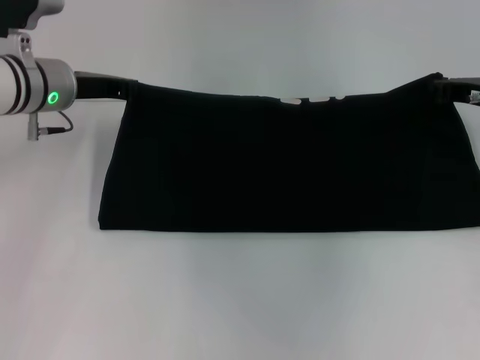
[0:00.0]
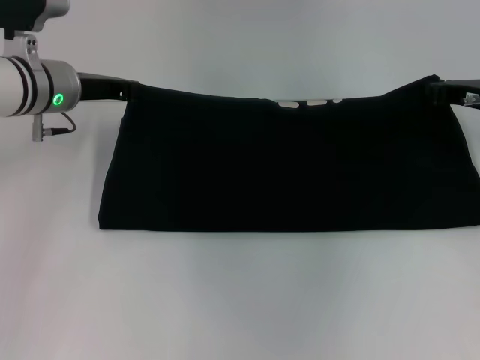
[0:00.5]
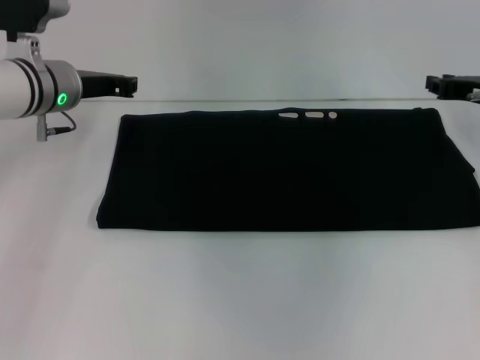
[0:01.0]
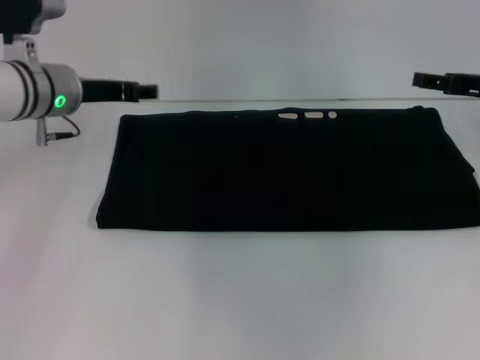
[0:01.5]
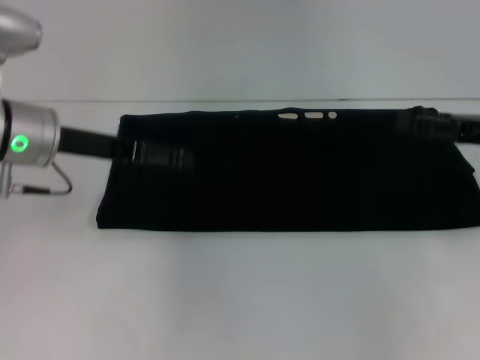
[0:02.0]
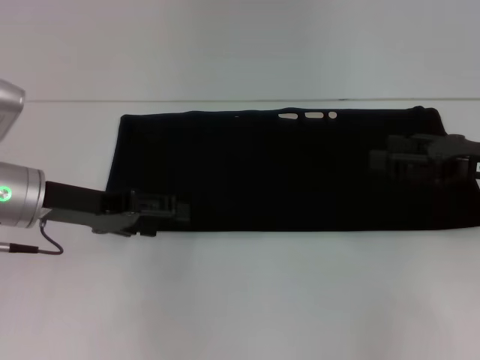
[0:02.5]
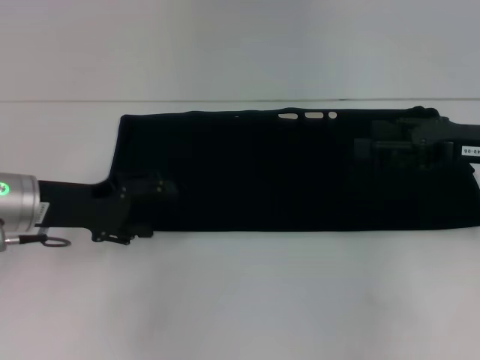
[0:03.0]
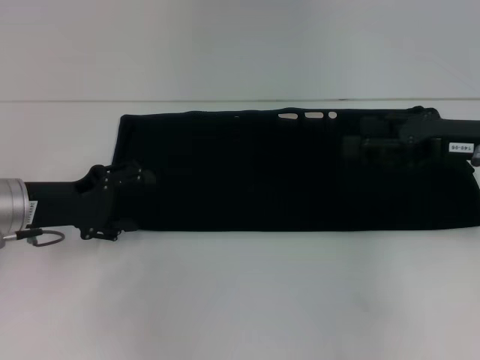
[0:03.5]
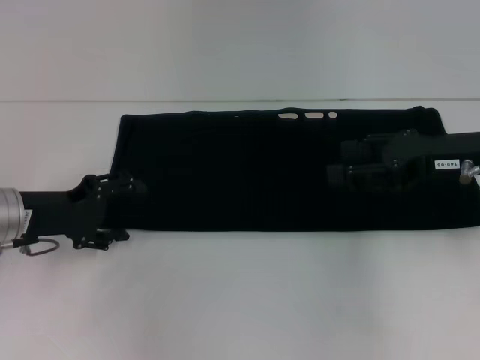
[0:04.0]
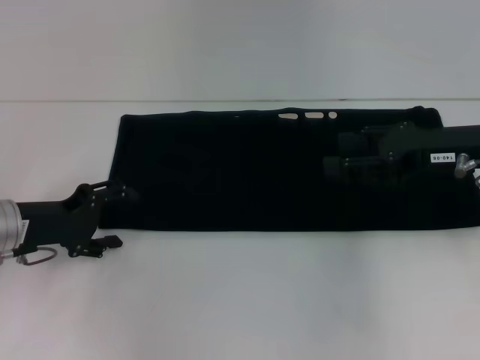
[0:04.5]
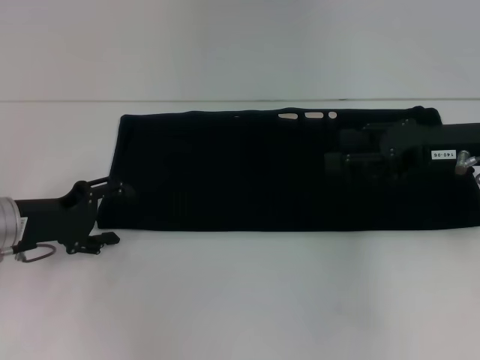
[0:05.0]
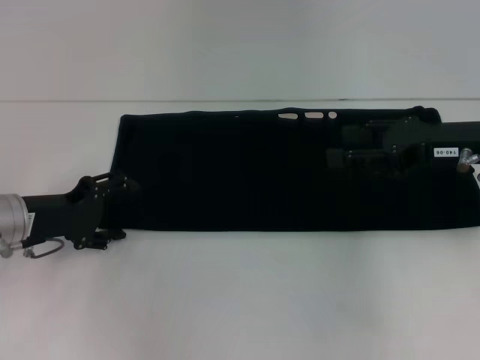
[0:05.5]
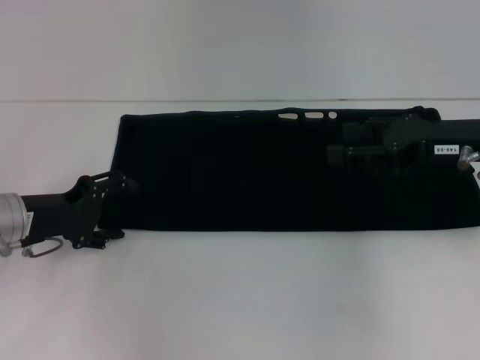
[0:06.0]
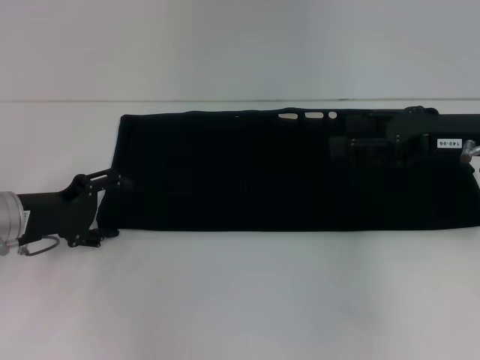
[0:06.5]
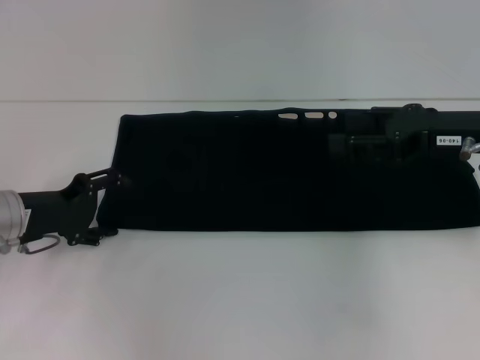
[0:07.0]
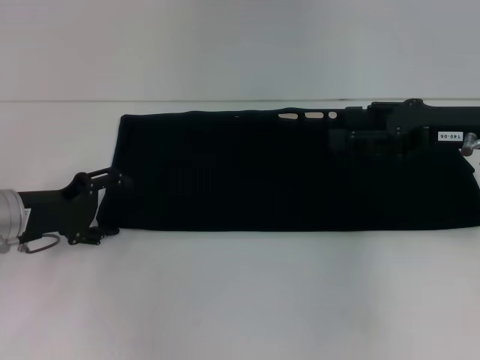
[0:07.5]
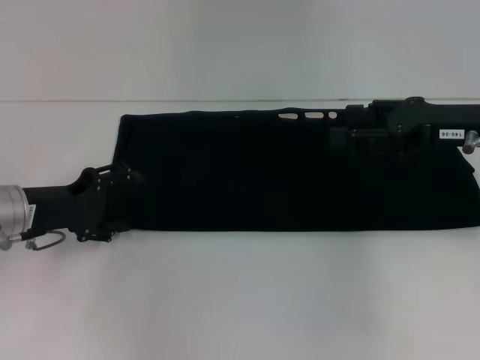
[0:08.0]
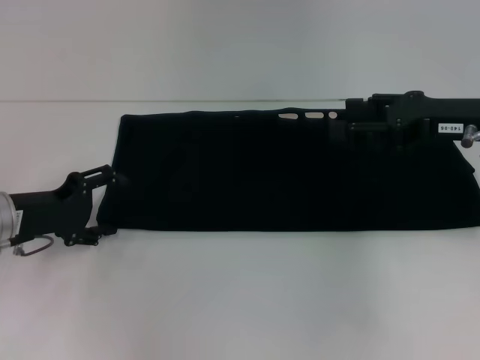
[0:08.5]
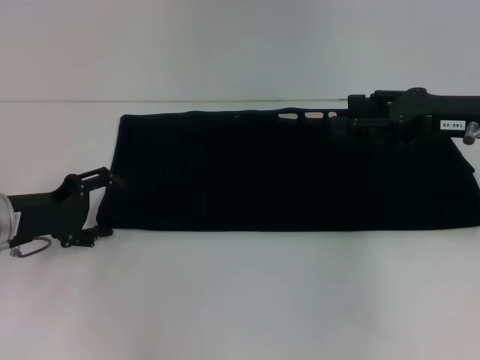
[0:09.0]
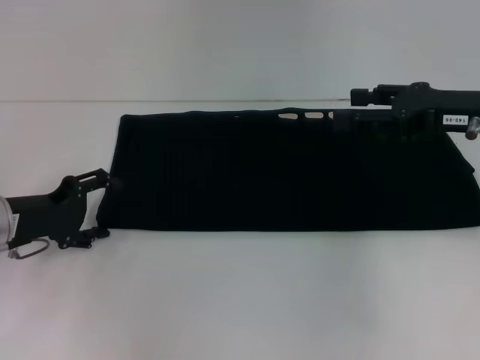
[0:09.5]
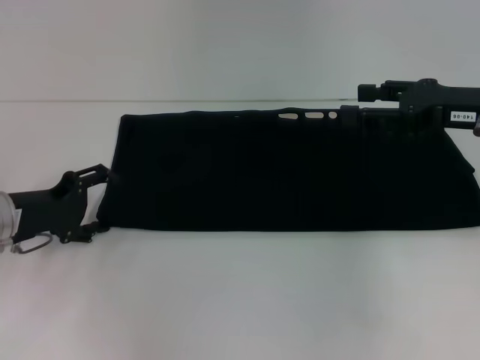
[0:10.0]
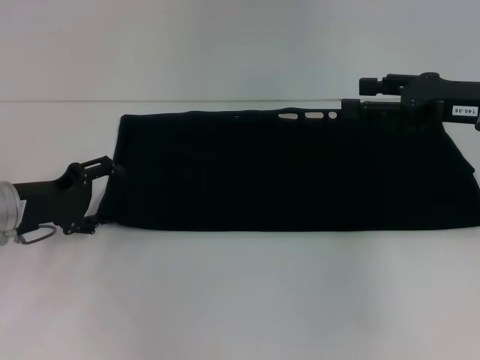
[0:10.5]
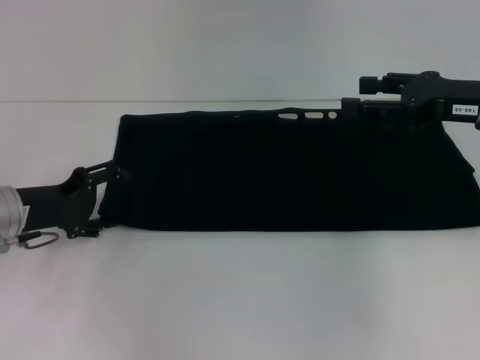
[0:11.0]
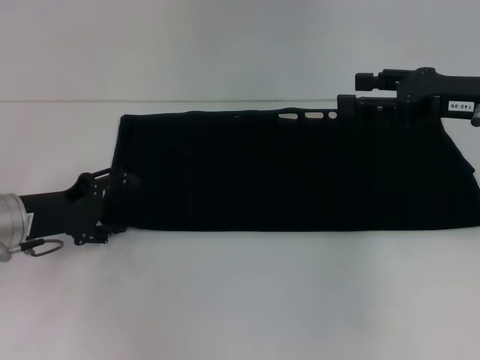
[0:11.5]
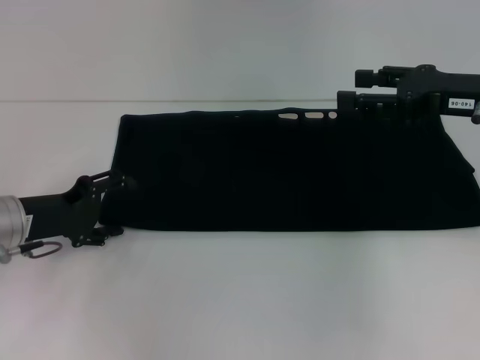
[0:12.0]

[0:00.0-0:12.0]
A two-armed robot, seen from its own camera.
0:00.0 to 0:02.0: Both grippers travel together backward, roughly 10 cm. The right gripper opens up; the left gripper opens its fingers.
0:02.0 to 0:04.0: The right gripper goes some 5 cm to the left. Meanwhile the left gripper moves downward, about 10 cm.
0:04.0 to 0:06.0: The grippers stay close to where they were, moving slightly.
0:06.0 to 0:08.0: Both grippers stay put.
0:08.0 to 0:12.0: The grippers move only a little.

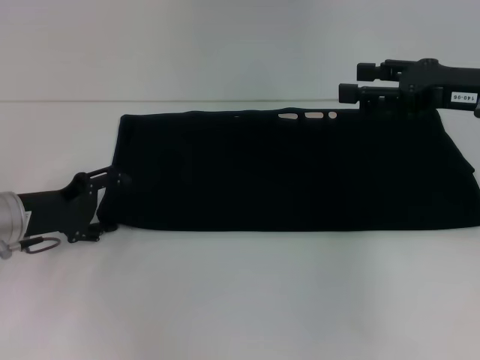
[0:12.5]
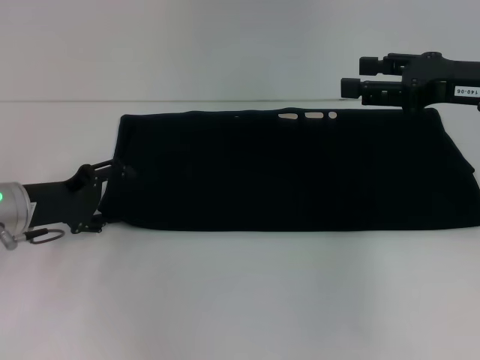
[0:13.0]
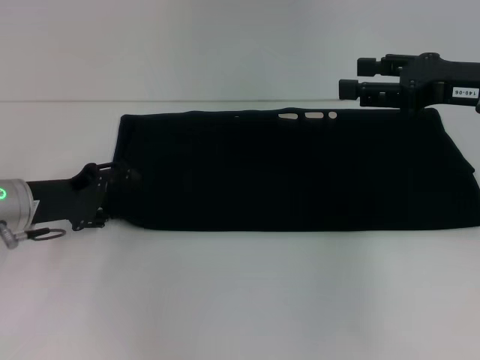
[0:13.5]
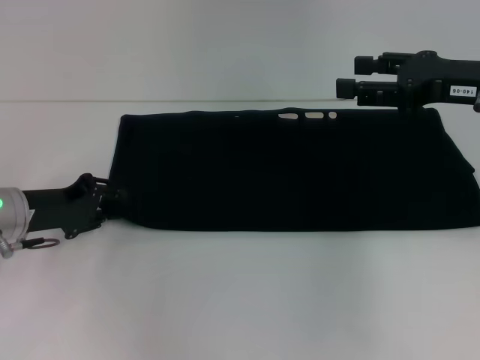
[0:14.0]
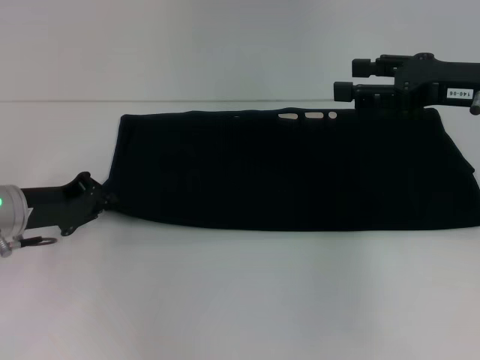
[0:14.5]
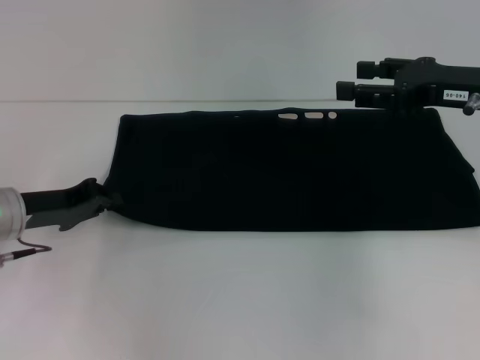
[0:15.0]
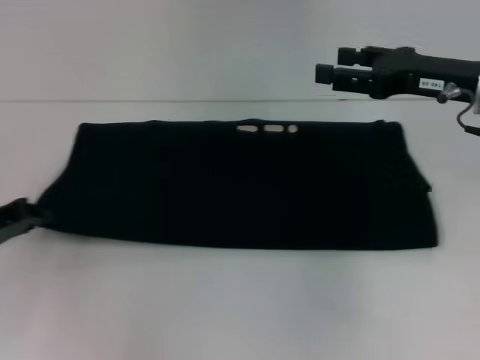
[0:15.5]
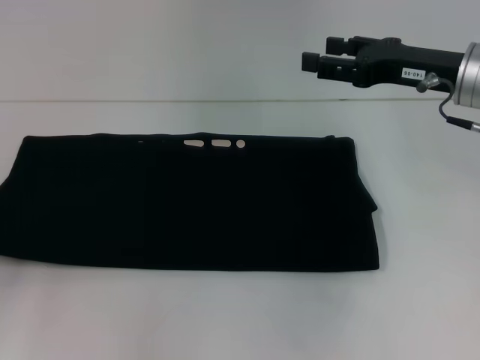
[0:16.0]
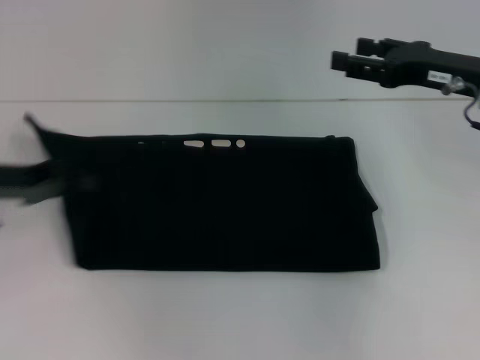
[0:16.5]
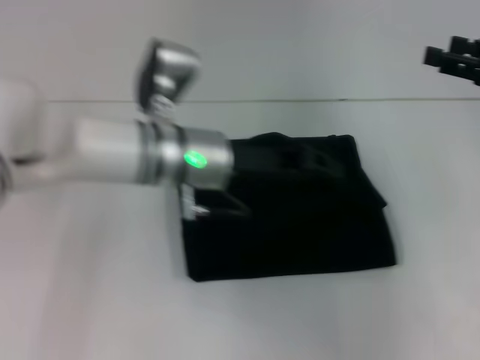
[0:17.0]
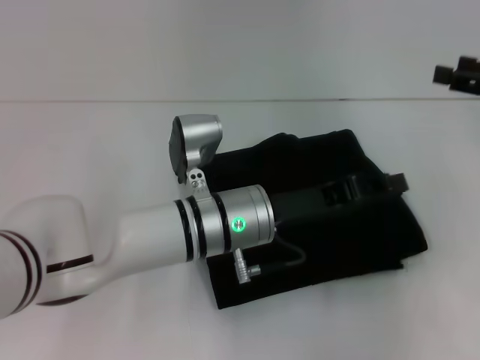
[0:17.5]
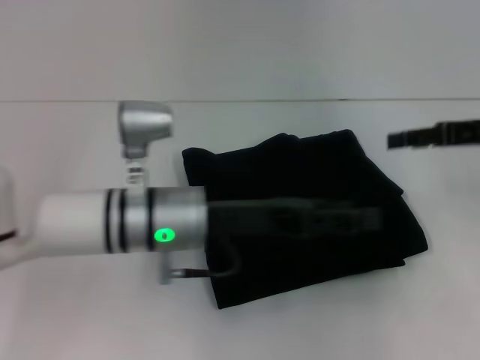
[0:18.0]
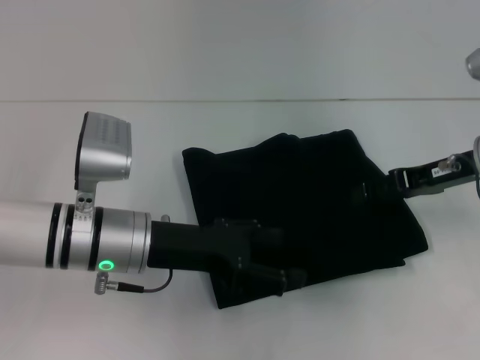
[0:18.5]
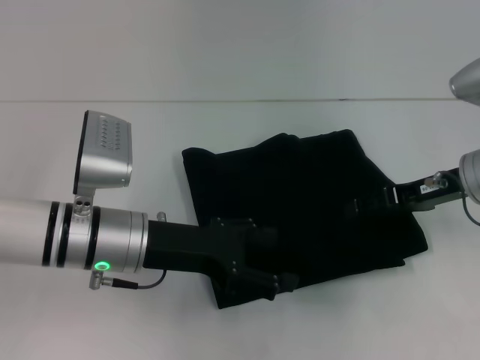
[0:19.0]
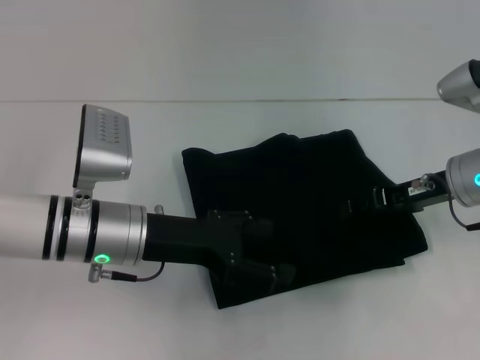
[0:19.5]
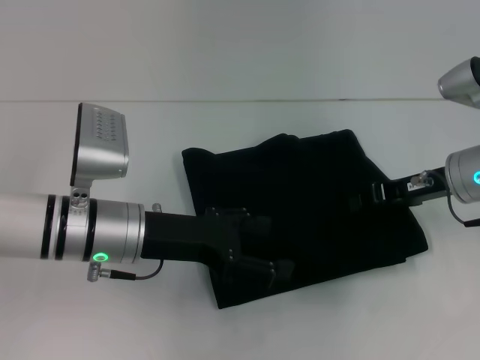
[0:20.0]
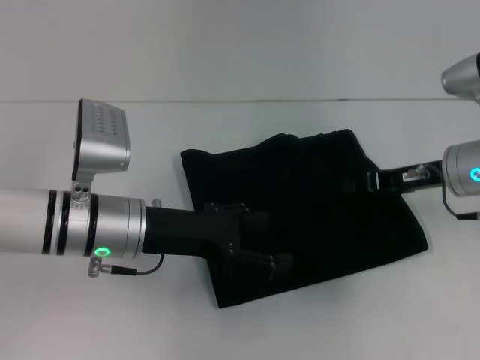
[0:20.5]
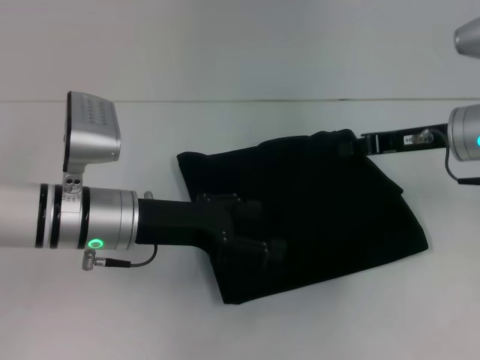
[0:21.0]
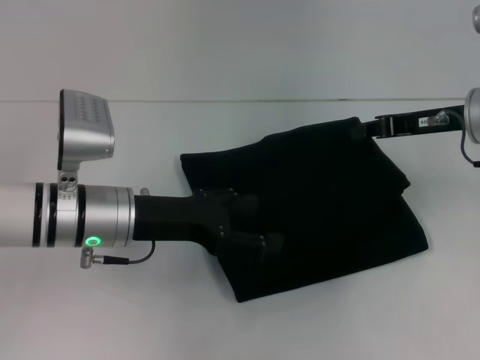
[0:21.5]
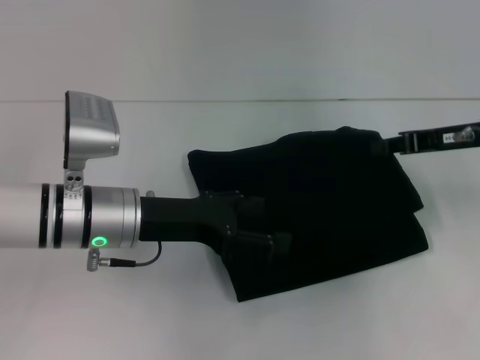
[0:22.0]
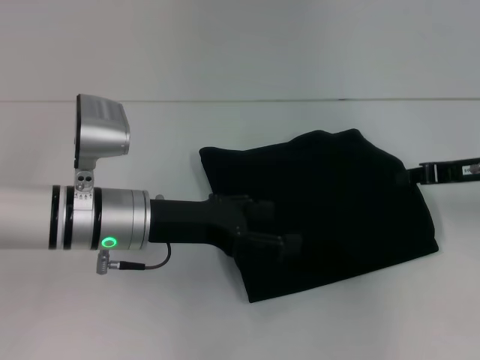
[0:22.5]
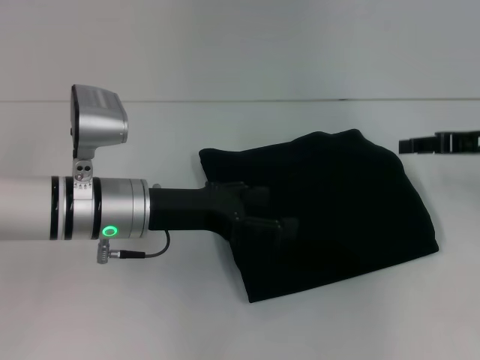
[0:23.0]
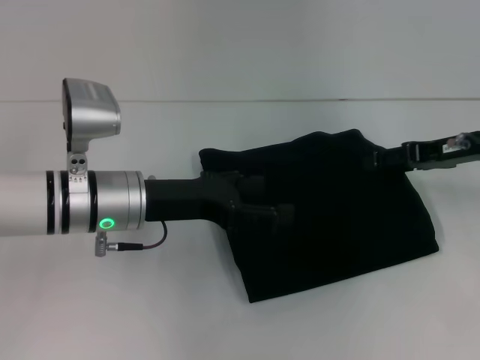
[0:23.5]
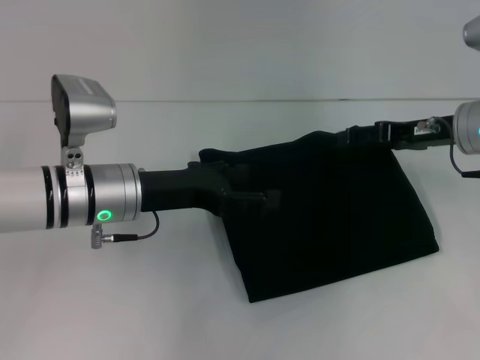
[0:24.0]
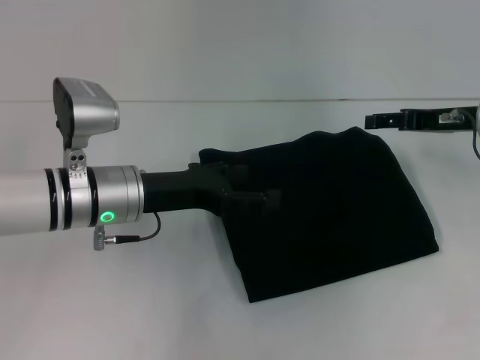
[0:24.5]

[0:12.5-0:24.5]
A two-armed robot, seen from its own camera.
Step, 0:12.5 to 0:17.5: Fold the clothes with your left hand.
0:12.5 to 0:14.5: The left gripper closes its fingers.
0:14.5 to 0:16.5: The left gripper travels upward by some 5 cm, and goes to the left and returns, some 10 cm each way.
0:16.5 to 0:18.5: The left gripper heads to the right, covering approximately 15 cm, and opens up, while the right gripper moves about 10 cm to the right and comes back.
0:18.5 to 0:20.5: The right gripper closes.
0:20.5 to 0:22.5: The right gripper heads to the right, covering about 5 cm.
0:22.5 to 0:24.5: The right gripper ends up approximately 5 cm from where it was, and opens up.

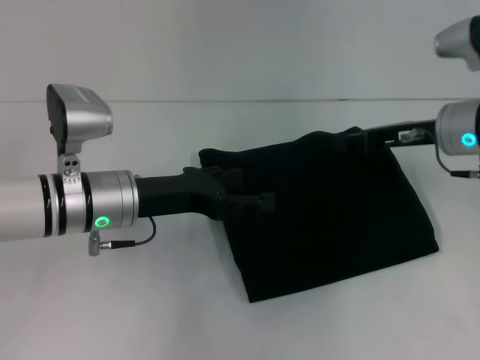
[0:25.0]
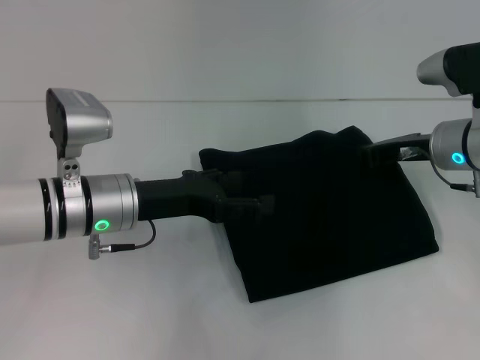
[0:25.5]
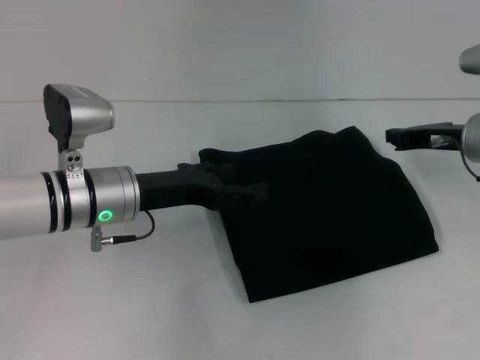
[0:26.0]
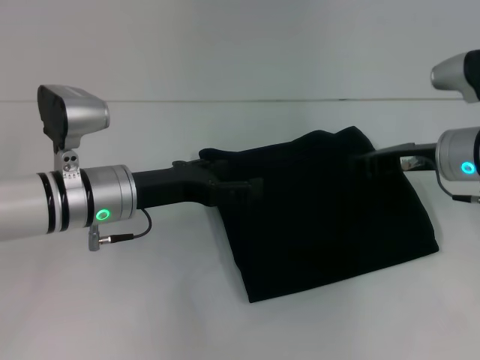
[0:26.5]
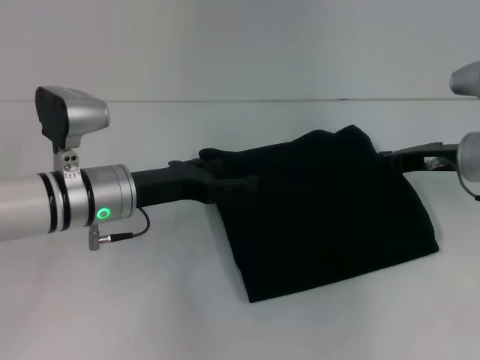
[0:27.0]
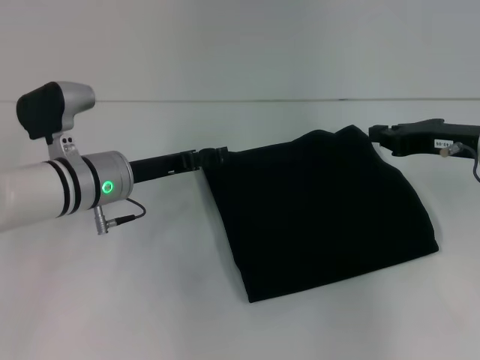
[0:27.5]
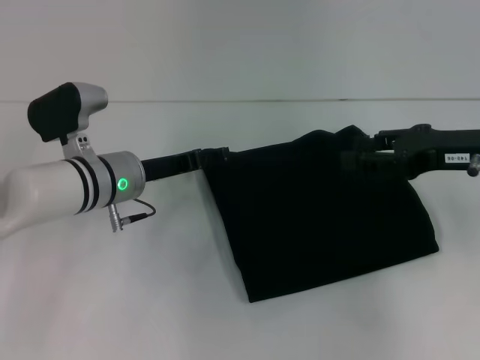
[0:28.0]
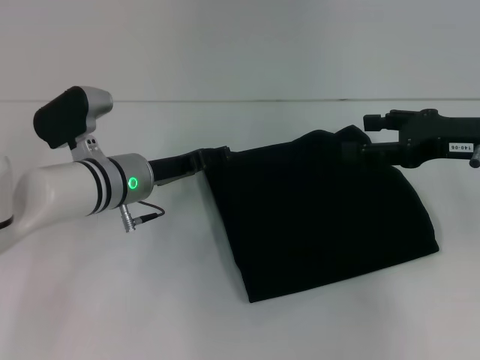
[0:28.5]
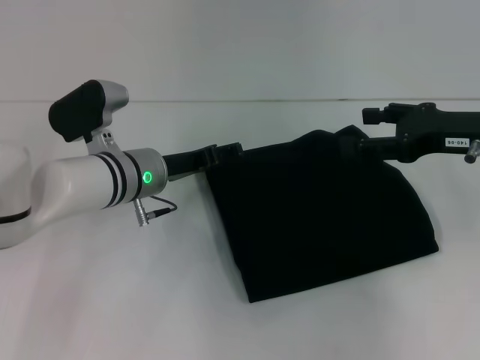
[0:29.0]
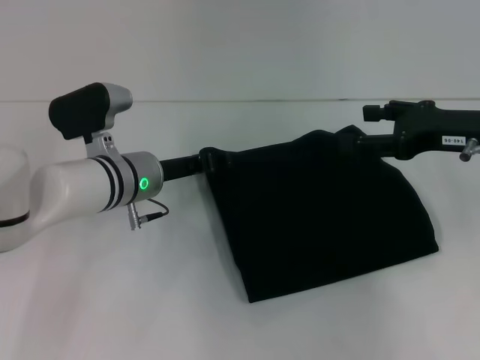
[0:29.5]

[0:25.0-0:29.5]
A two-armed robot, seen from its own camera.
0:25.0 to 0:27.0: The right gripper closes.
0:27.0 to 0:29.5: The right gripper heads upward, covering about 5 cm, and opens up, while the left gripper moves about 5 cm.
